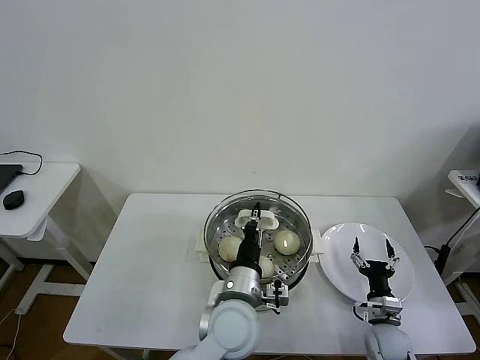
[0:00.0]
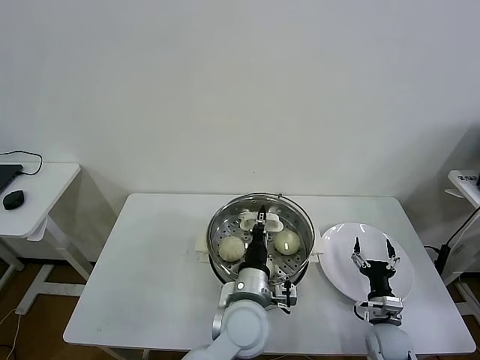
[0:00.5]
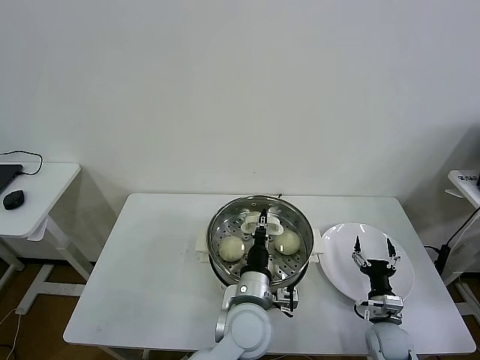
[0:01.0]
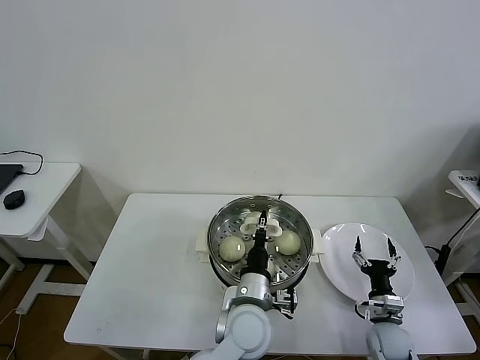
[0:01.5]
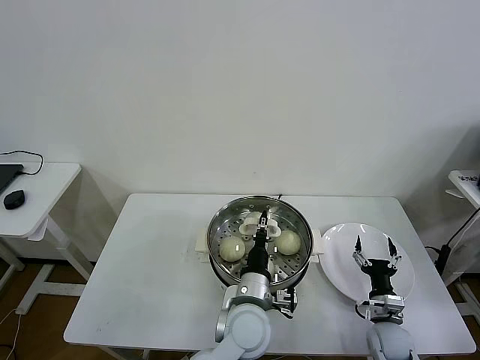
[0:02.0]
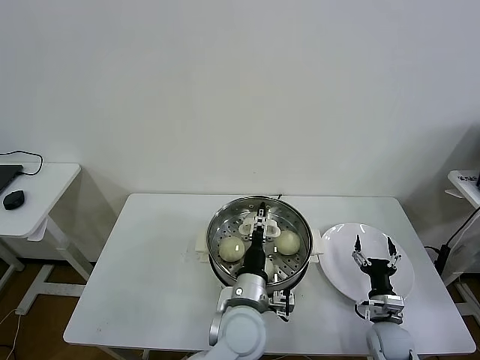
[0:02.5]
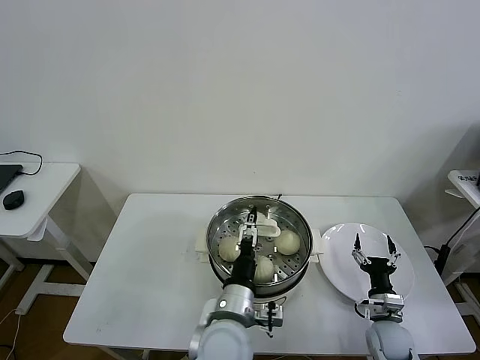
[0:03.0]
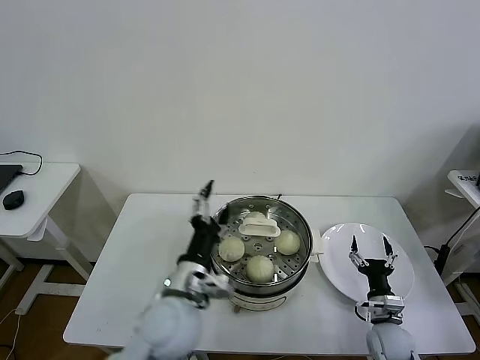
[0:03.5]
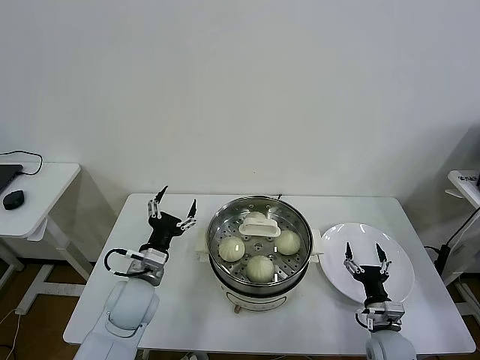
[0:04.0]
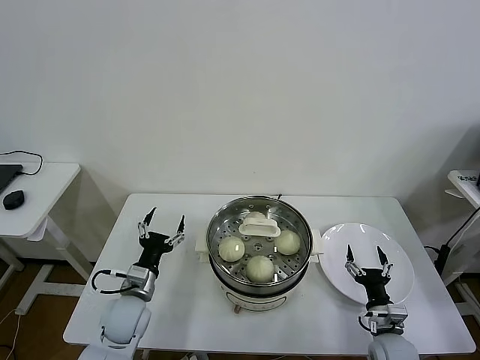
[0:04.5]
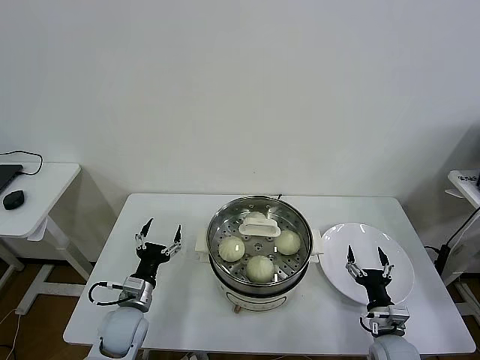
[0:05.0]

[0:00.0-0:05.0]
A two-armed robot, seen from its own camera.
Task of the whole recording: take steamed baozi put them in steamer then cover it.
Step, 0:00.0 to 0:02.0: Place the pot lid on the steamer with left gripper.
0:00.0 to 0:02.5: The left gripper opens.
0:02.5 to 0:05.0: The left gripper is displaced to the left by about 25 cm.
